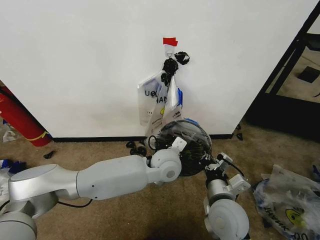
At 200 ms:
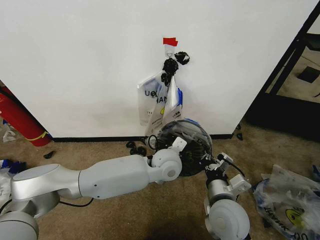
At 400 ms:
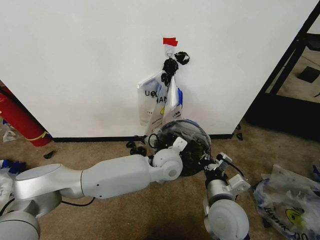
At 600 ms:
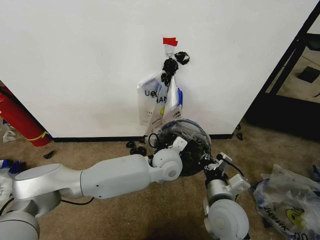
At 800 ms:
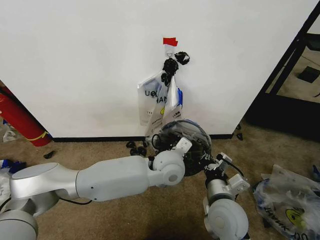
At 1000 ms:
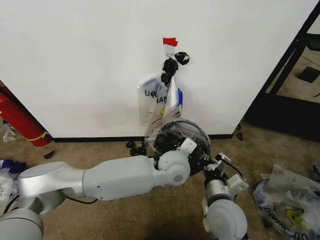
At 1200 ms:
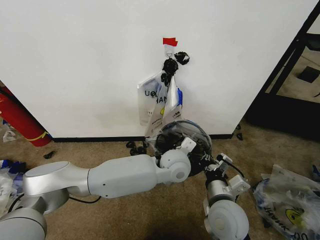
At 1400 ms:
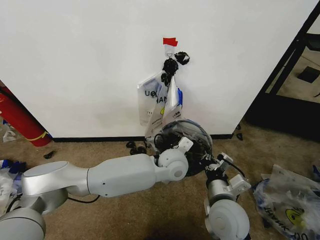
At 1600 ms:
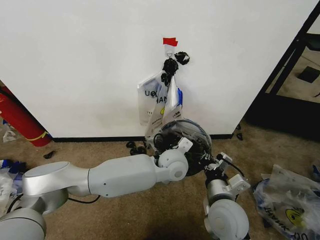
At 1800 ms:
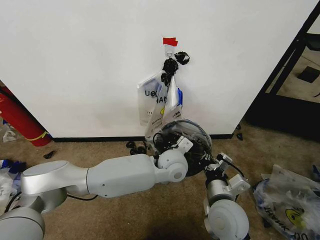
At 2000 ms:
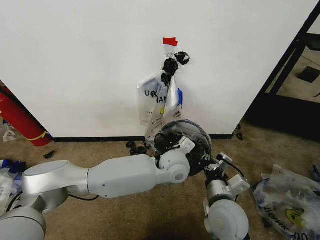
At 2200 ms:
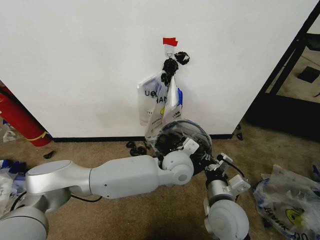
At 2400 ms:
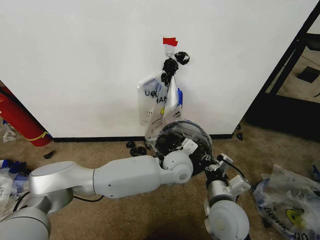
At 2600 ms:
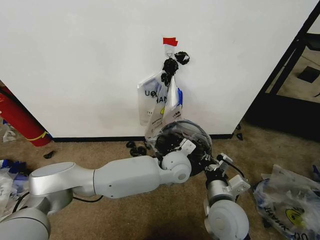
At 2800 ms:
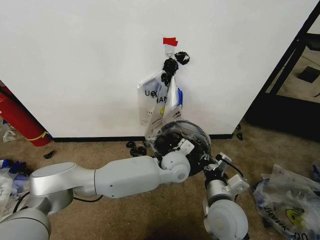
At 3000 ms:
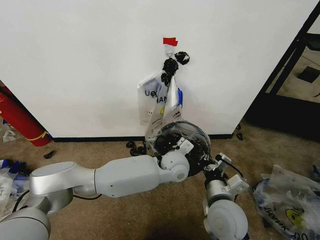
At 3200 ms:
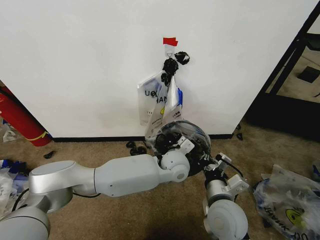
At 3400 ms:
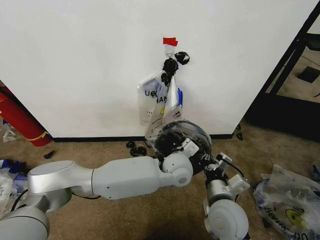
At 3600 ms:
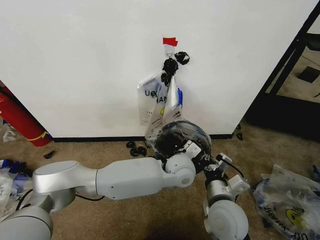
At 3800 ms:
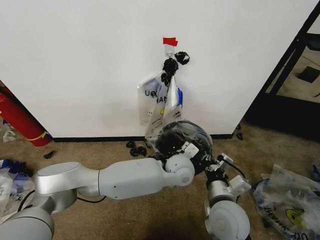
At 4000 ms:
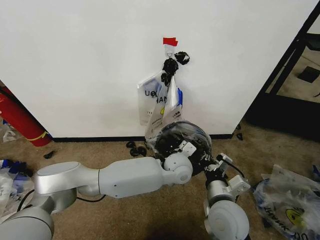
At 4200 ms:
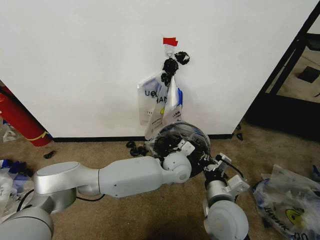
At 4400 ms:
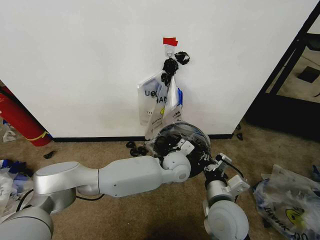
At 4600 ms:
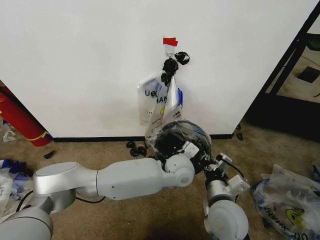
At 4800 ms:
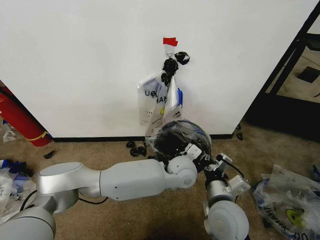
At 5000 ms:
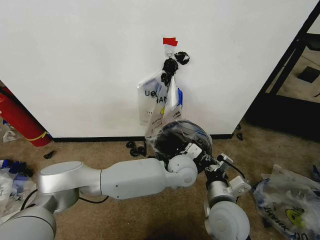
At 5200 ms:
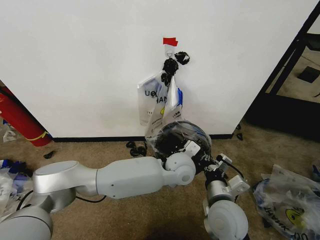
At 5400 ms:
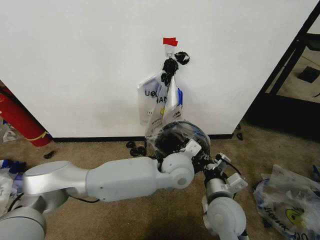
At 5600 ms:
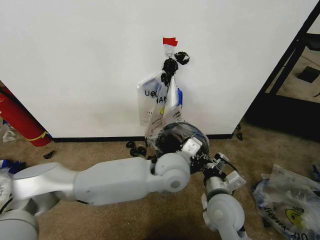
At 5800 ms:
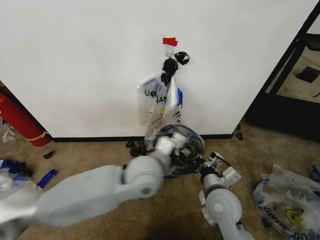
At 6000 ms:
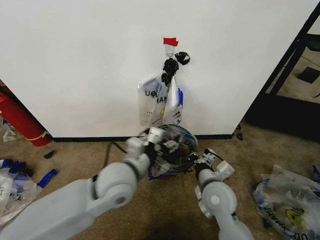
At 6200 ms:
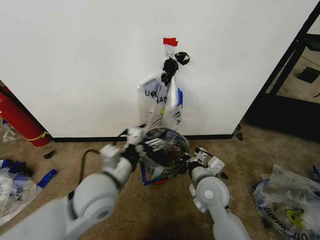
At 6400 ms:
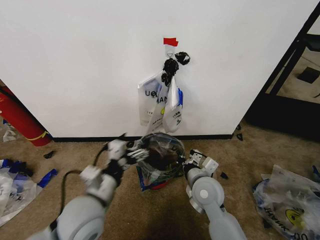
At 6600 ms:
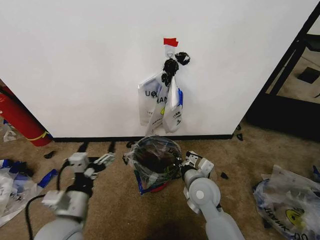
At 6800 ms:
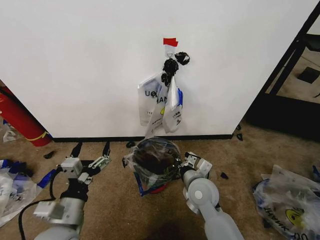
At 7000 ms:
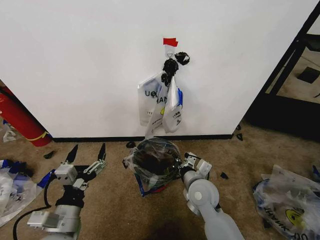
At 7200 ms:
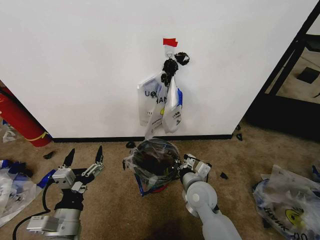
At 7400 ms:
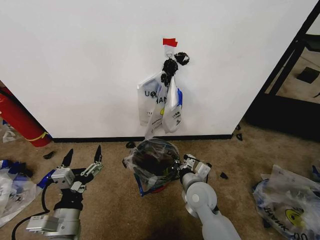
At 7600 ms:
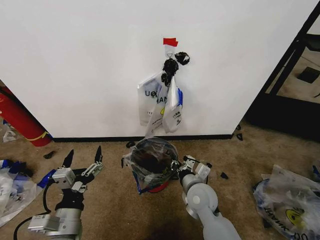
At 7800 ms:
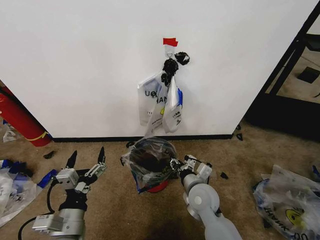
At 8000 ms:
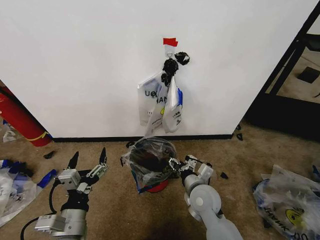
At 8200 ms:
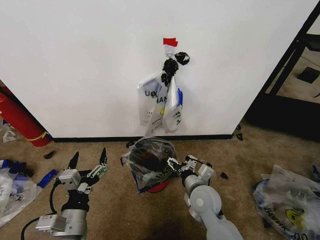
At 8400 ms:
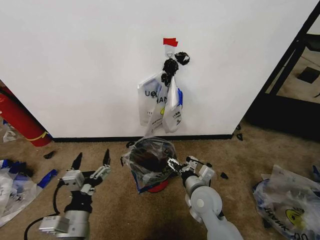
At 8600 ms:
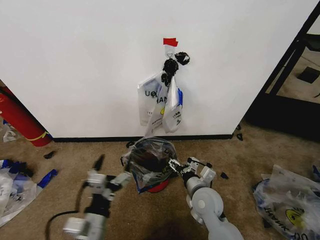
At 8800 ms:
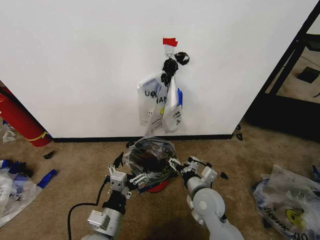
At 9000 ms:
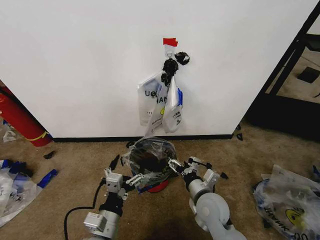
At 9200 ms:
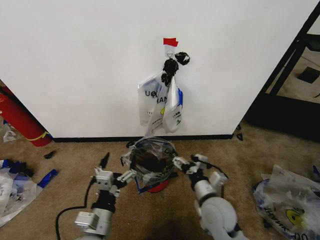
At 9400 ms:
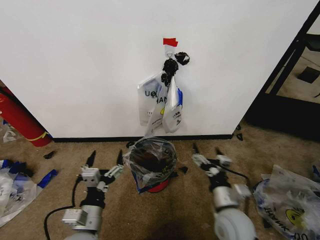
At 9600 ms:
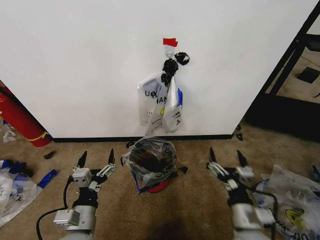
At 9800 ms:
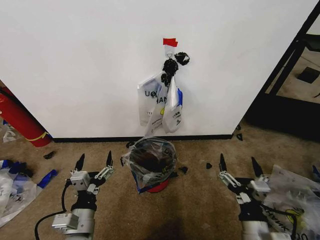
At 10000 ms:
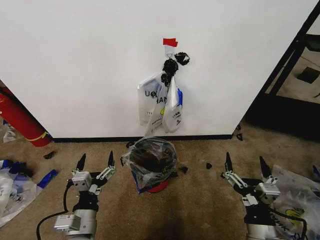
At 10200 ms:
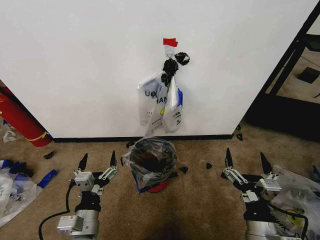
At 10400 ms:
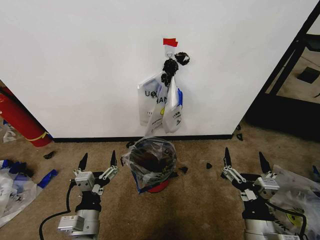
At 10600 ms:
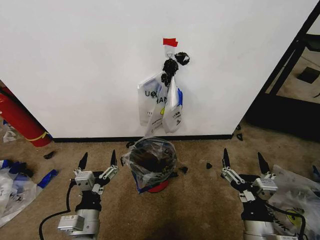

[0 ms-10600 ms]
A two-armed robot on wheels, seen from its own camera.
Task of the whole recording: Pick up the garbage bag from the wall and place it over the trash bin.
0 ms to 3000 ms: The grippers move only a little.
3000 ms to 4600 ms: The grippers make only small movements.
4600 ms to 6000 ms: The right gripper heads forward, covering approximately 5 cm, while the left gripper shifts about 20 cm to the left, backward and upward, and opens its fingers.
6000 ms to 7600 ms: The left gripper travels backward, to the left and downward by some 20 cm; the right gripper ends up about 5 cm from where it was.
7600 ms to 9000 ms: The left gripper travels to the right by some 5 cm. Meanwhile the right gripper opens up.
9000 ms to 10600 ms: The right gripper moves backward and to the right, approximately 15 cm.

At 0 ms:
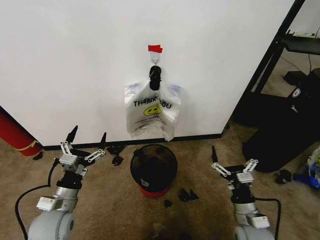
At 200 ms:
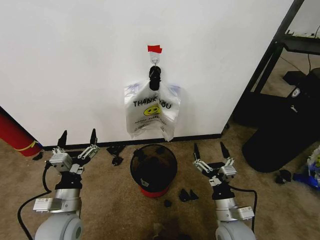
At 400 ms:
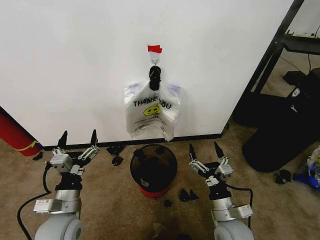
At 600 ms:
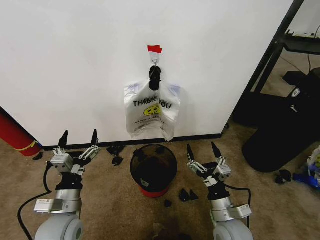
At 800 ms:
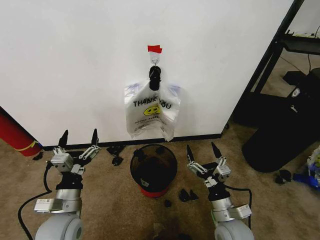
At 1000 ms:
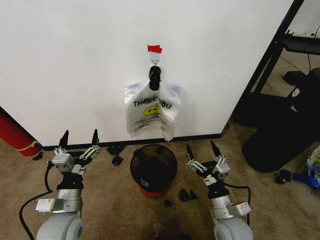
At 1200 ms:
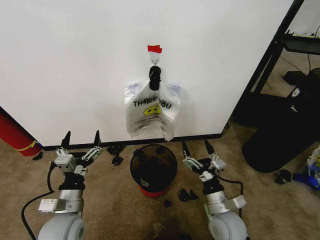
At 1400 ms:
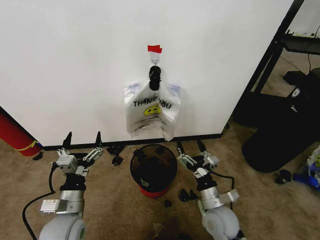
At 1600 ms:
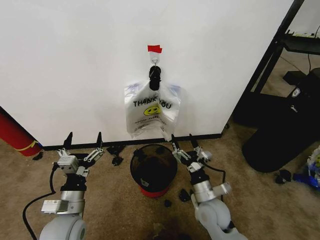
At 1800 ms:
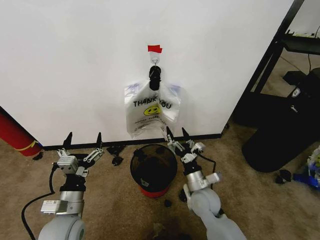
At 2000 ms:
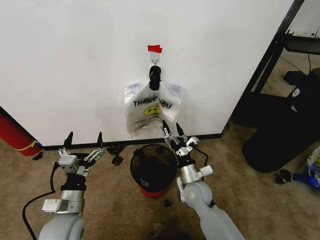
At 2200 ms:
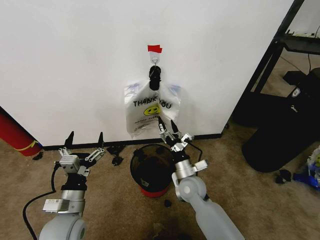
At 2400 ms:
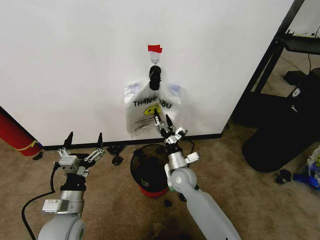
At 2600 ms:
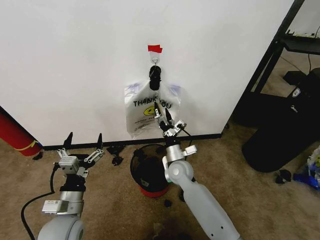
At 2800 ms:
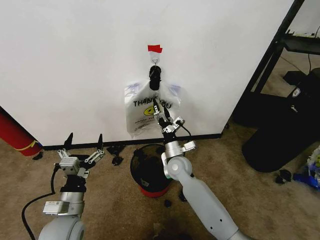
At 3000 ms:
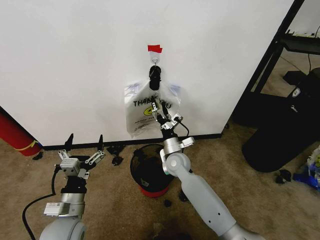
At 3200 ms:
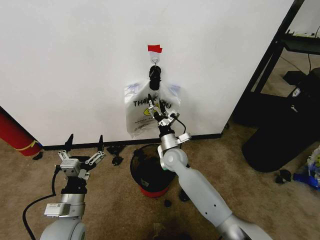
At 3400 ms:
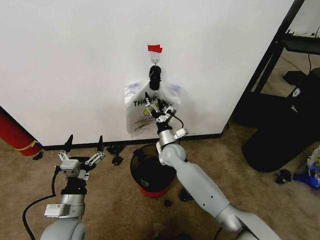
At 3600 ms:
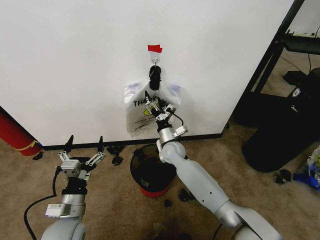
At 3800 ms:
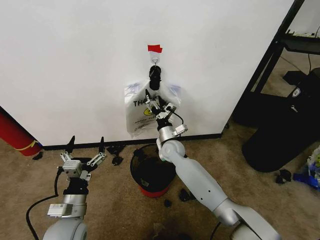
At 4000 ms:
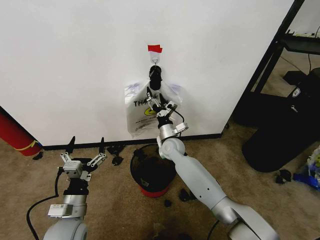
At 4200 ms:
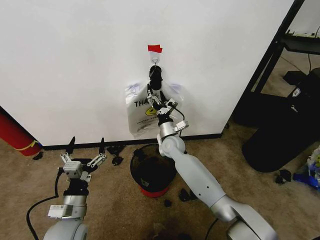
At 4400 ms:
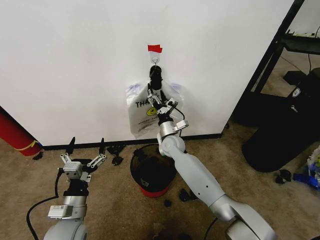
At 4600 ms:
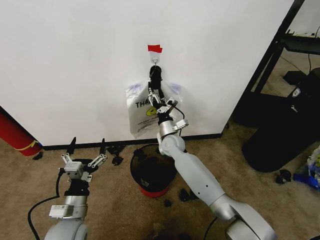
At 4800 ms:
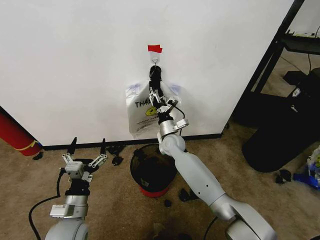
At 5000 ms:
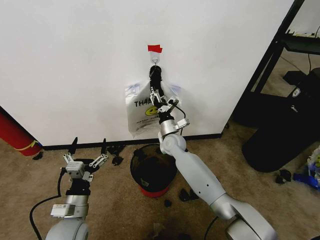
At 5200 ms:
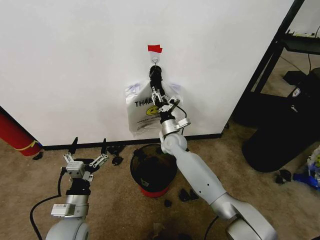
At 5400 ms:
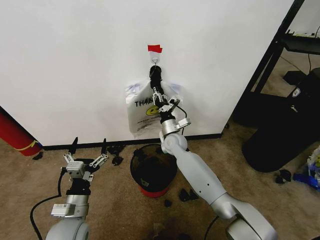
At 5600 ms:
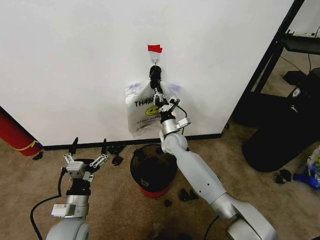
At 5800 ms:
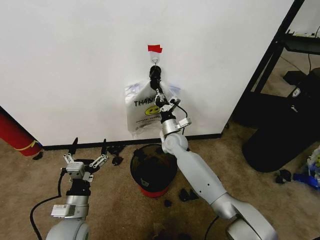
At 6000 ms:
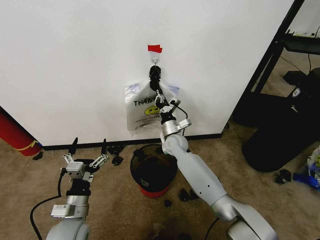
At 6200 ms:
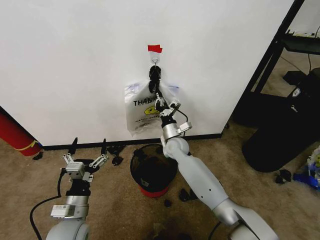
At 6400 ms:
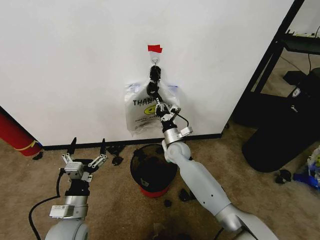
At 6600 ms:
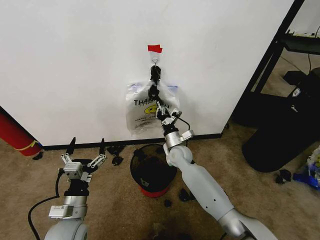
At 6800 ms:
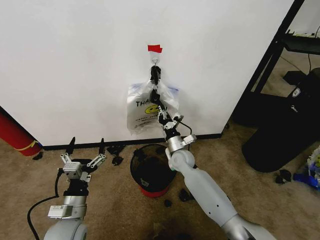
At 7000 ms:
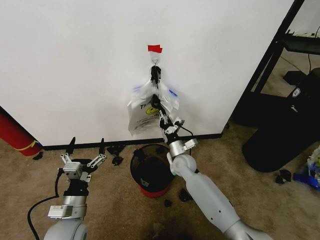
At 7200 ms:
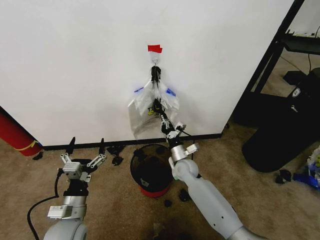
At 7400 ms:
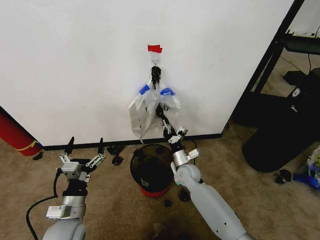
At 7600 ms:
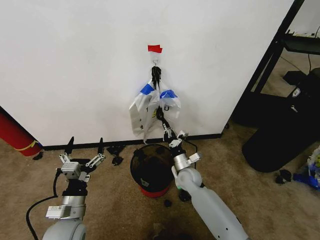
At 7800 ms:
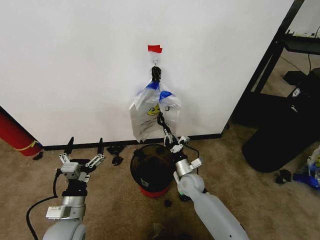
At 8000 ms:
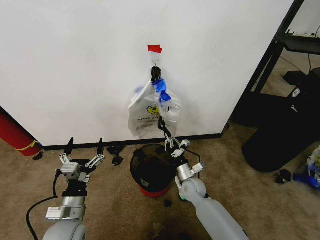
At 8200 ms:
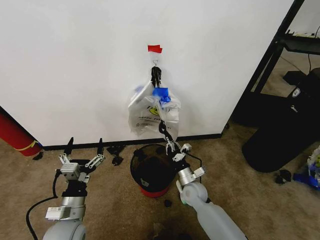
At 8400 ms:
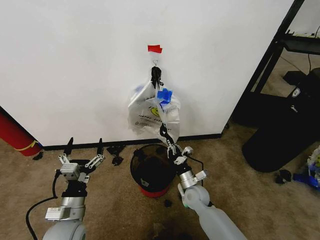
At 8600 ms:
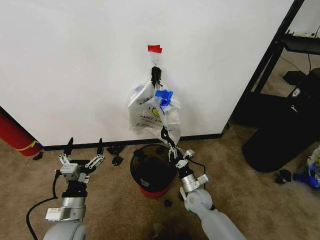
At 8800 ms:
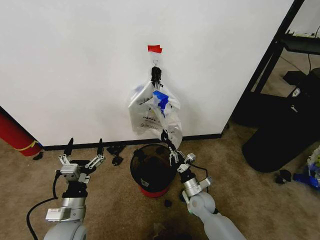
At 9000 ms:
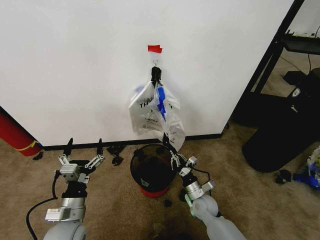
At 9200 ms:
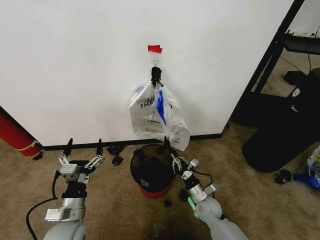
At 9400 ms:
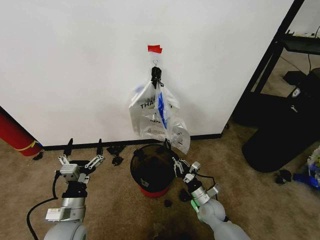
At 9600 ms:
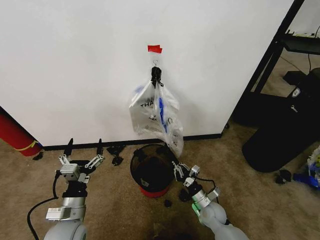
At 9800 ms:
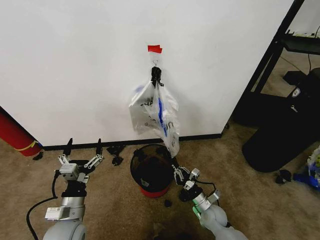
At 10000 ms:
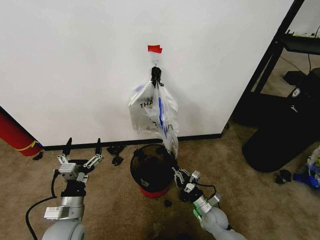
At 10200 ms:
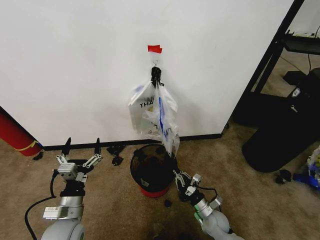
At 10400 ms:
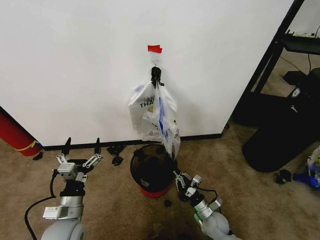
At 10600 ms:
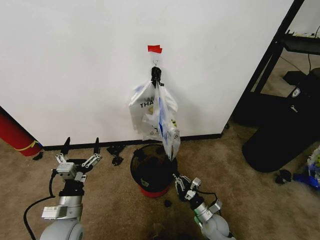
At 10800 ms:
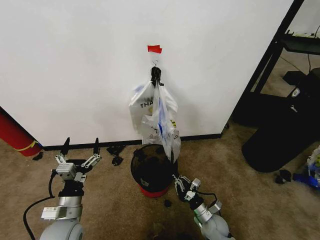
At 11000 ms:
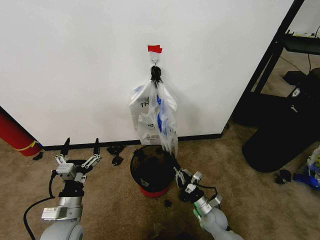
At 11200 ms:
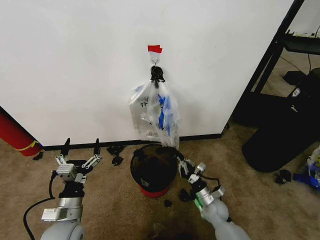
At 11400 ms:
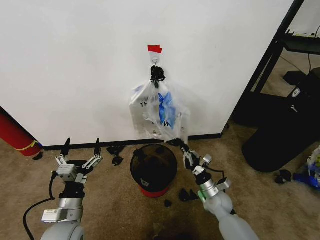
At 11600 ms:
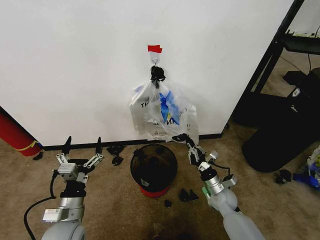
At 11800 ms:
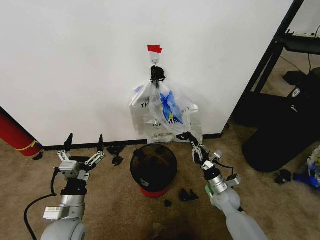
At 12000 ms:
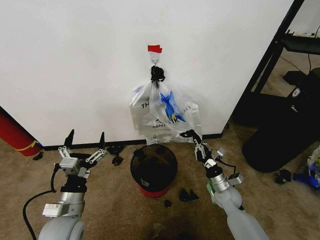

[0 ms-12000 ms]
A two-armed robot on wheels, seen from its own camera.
Task of the whole recording: Pick up the garbage bag from the wall and place it over the trash bin.
1600 ms to 3000 ms: The right gripper goes roughly 20 cm forward and to the left.
3000 ms to 4400 ms: The right gripper travels forward by some 10 cm.
4400 ms to 6000 ms: The right gripper closes up.
6000 ms to 7600 ms: The right gripper moves backward, downward and to the right, about 15 cm.
7600 ms to 9000 ms: The right gripper heads backward, downward and to the right, covering about 10 cm.
9000 ms to 10400 ms: The right gripper is displaced downward by approximately 5 cm.
10400 ms to 12000 ms: The right gripper is displaced upward and forward by roughly 10 cm.
